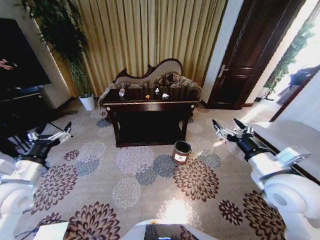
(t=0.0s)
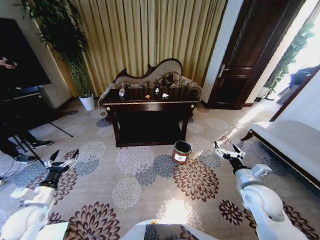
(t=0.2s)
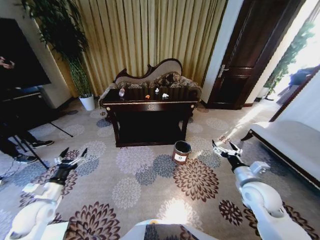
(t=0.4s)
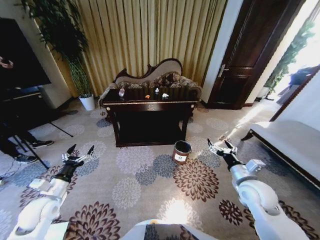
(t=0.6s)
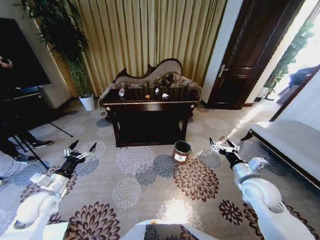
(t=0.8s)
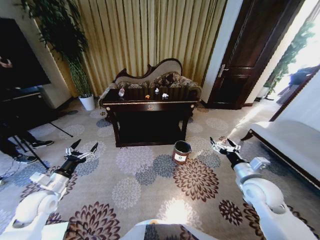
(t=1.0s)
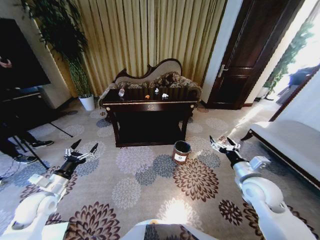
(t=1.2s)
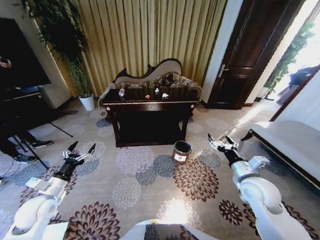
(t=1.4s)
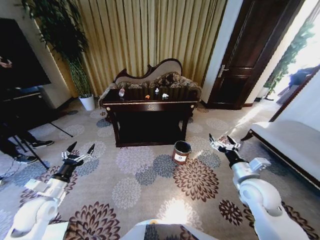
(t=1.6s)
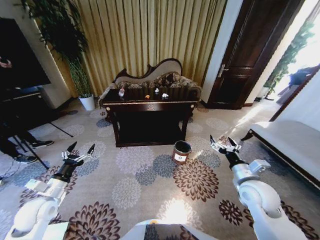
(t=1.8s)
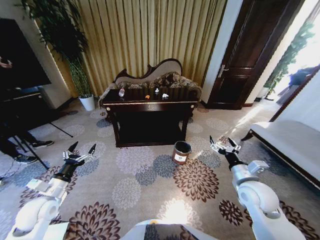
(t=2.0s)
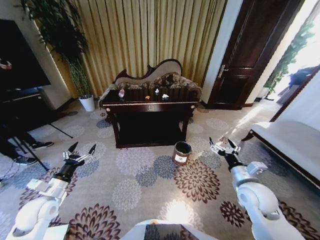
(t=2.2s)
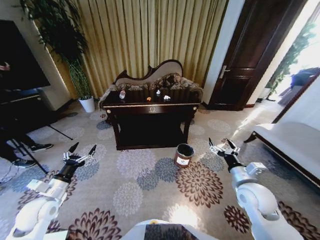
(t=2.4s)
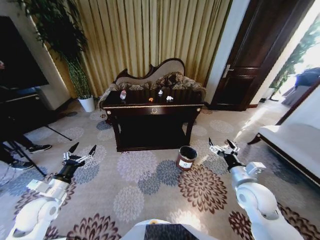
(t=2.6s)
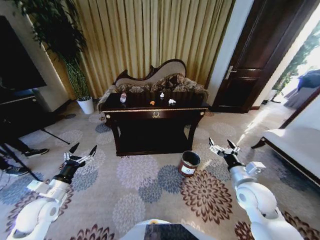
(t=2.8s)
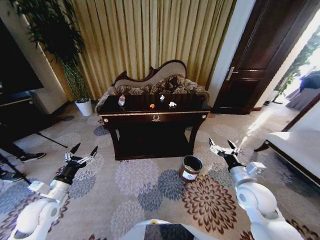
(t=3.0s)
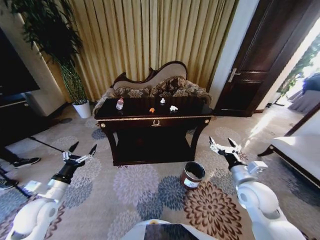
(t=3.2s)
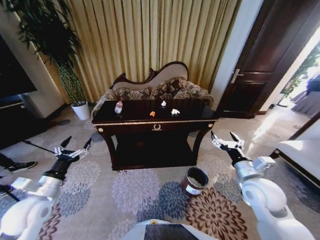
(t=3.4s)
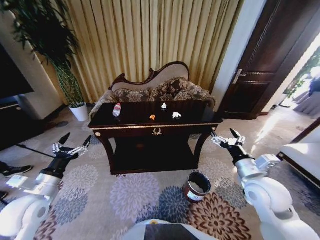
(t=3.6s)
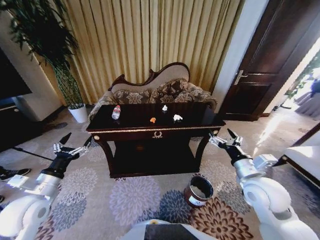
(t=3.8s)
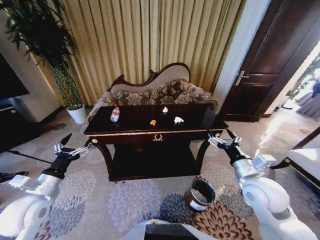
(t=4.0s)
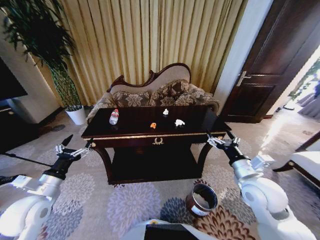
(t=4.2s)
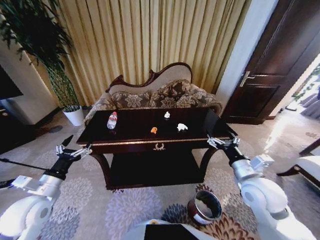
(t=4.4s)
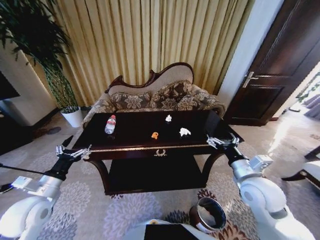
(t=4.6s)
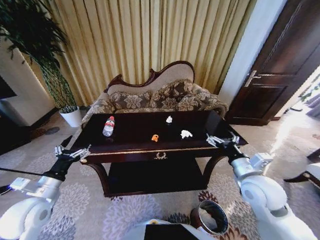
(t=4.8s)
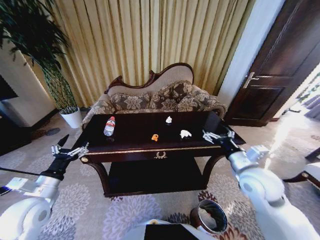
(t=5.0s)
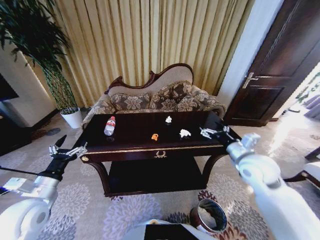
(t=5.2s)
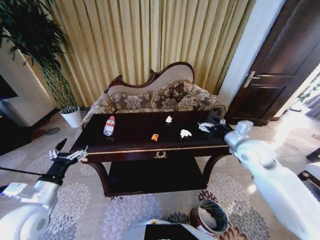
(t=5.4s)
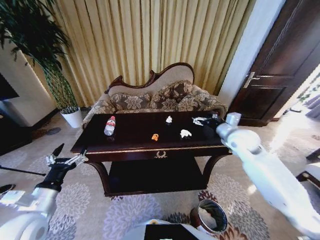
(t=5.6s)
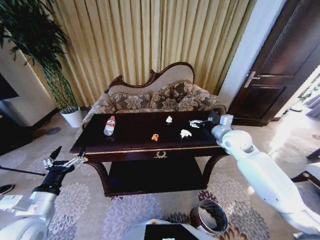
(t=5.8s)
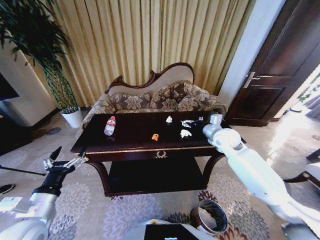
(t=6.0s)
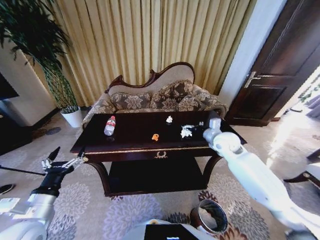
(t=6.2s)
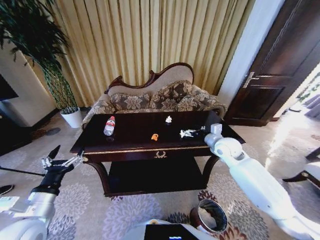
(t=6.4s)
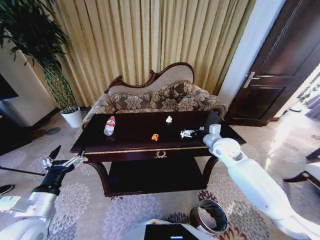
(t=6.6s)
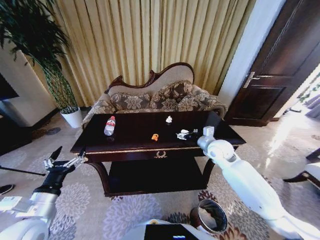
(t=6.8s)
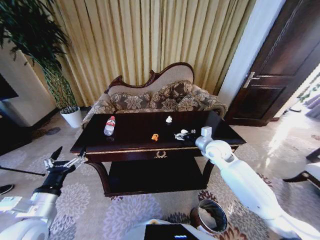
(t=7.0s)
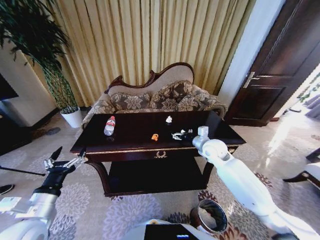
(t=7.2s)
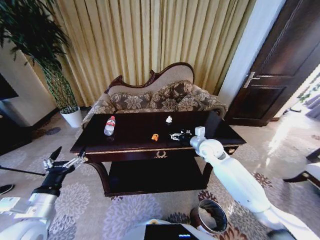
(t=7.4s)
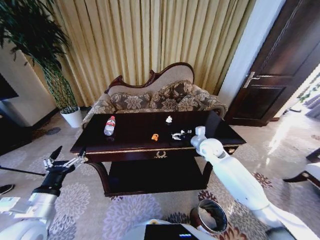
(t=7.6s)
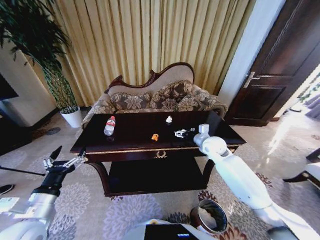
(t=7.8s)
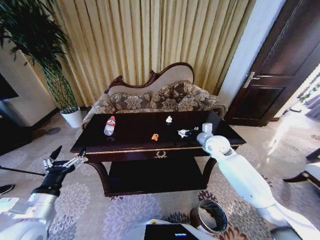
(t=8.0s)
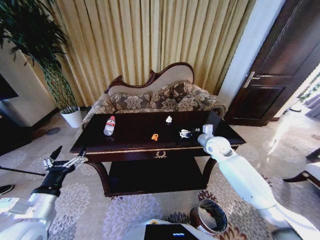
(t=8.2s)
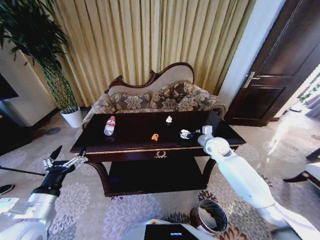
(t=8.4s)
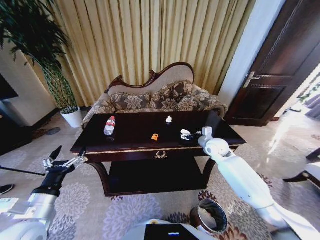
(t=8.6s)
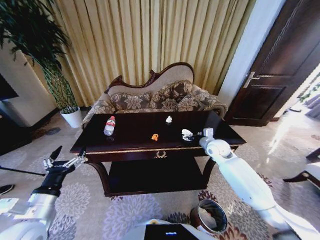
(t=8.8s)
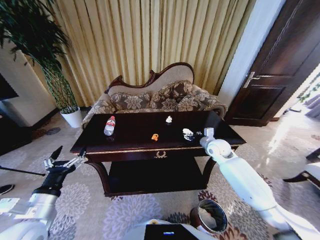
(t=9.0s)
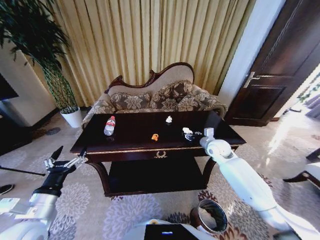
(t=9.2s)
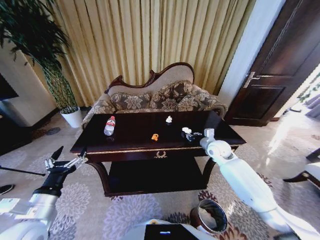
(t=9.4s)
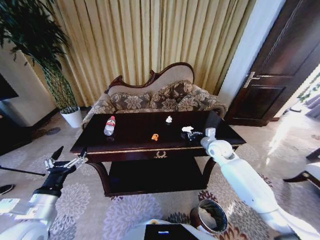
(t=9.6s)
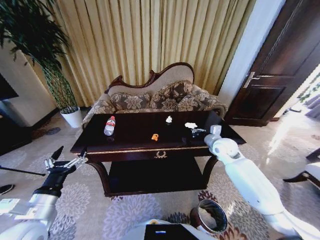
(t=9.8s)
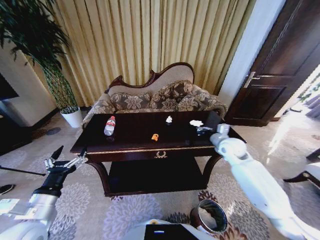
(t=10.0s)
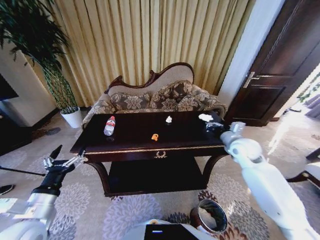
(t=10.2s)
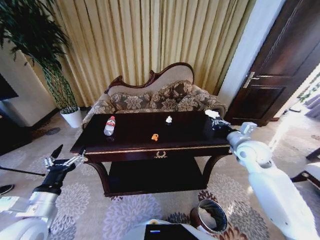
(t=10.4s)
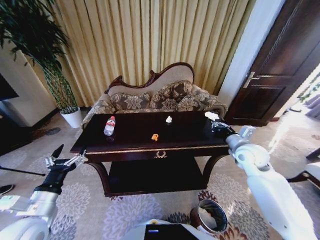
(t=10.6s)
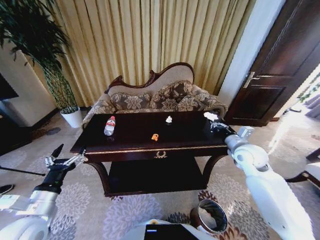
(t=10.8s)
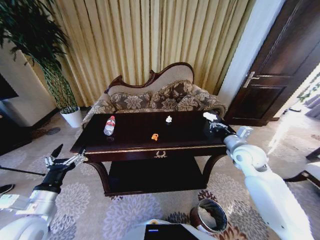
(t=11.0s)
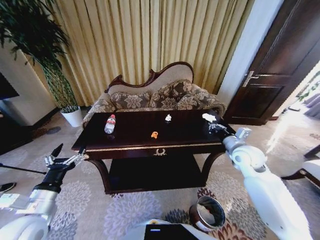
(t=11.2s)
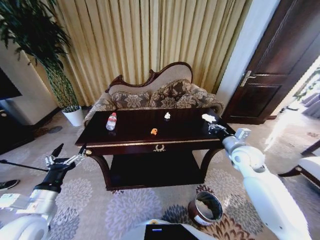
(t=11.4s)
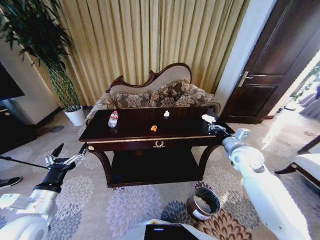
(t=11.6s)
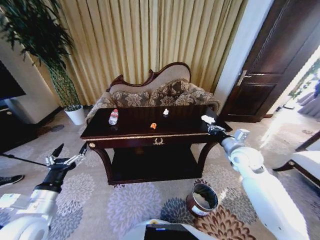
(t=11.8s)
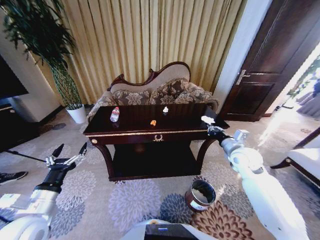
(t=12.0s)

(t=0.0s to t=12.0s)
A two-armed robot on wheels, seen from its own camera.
Task of the whole recording: Move to the front of the table and place the trash on the table into the trash bin.
t=3.0s - t=4.4s: Both grippers move upward, about 5 cm.
t=4.4s - t=6.0s: The left gripper heads backward, covering roughly 5 cm. Meanwhile the right gripper is displaced forward by roughly 20 cm.
t=6.0s - t=7.6s: The right gripper heads downward, covering some 5 cm.
t=7.6s - t=9.0s: The right gripper travels to the right by roughly 5 cm.
t=9.0s - t=10.4s: The right gripper shifts about 15 cm upward, backward and to the right, and closes its fingers.

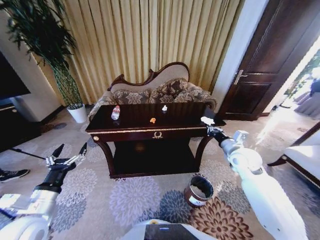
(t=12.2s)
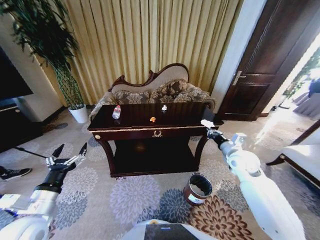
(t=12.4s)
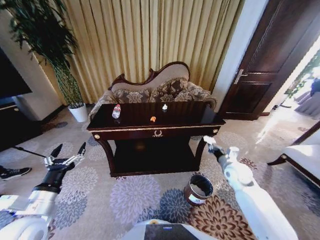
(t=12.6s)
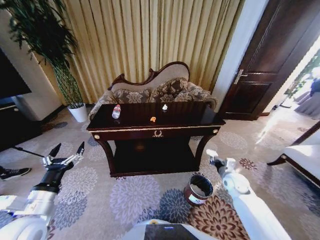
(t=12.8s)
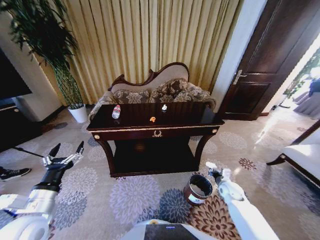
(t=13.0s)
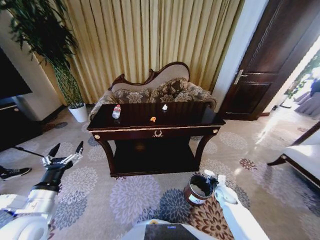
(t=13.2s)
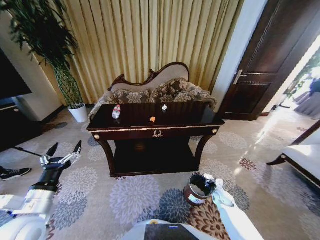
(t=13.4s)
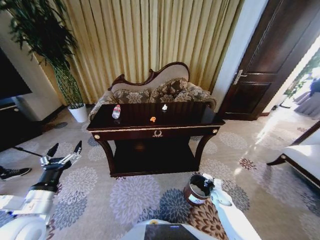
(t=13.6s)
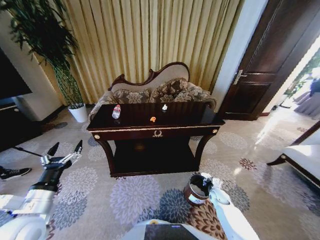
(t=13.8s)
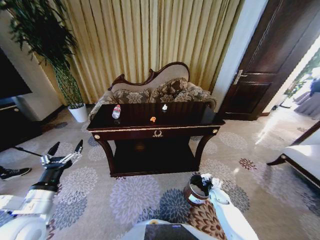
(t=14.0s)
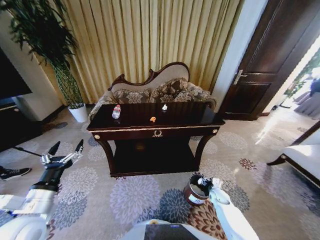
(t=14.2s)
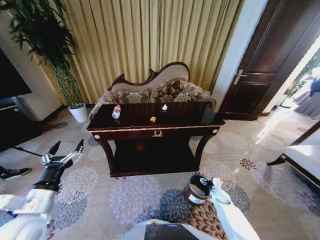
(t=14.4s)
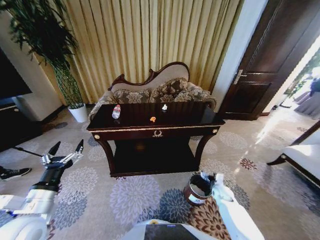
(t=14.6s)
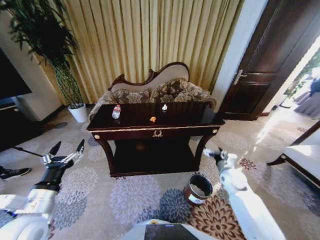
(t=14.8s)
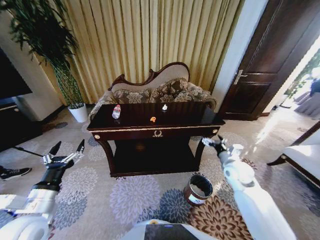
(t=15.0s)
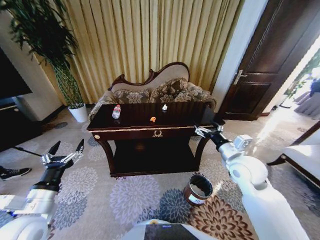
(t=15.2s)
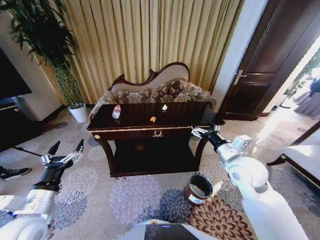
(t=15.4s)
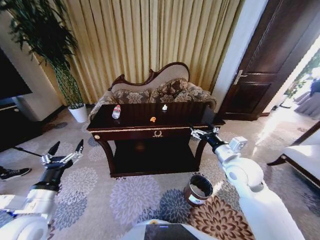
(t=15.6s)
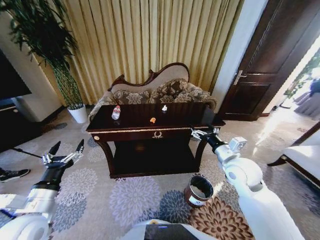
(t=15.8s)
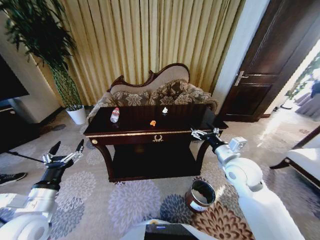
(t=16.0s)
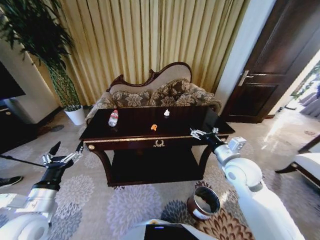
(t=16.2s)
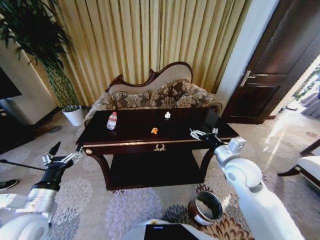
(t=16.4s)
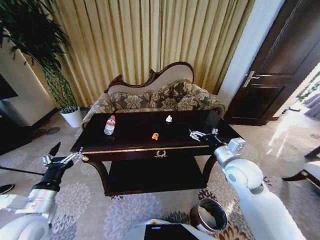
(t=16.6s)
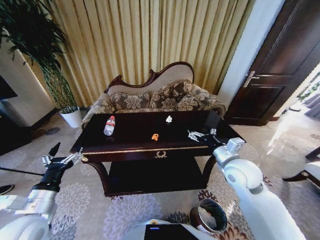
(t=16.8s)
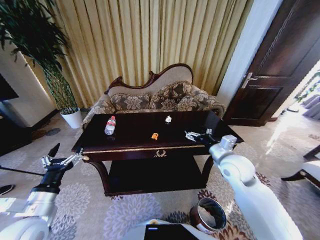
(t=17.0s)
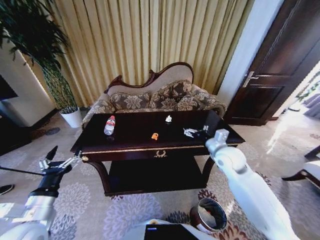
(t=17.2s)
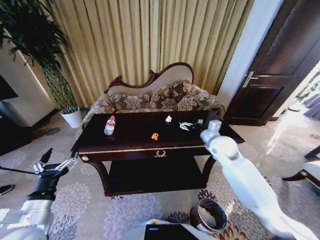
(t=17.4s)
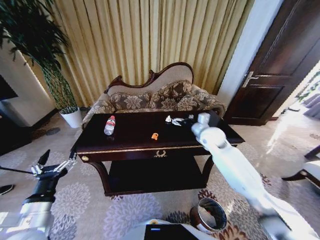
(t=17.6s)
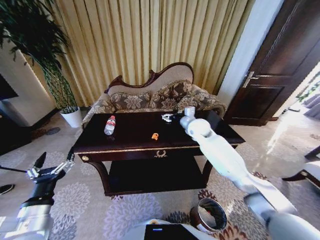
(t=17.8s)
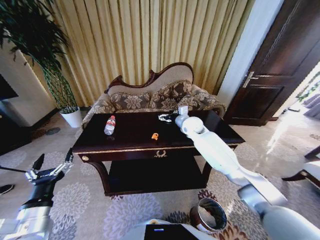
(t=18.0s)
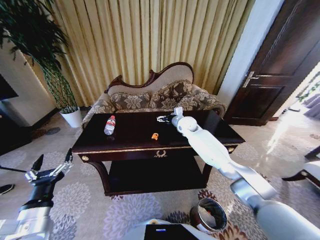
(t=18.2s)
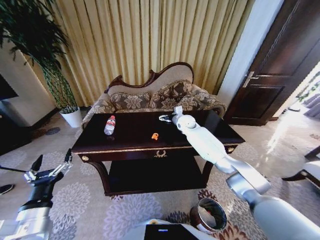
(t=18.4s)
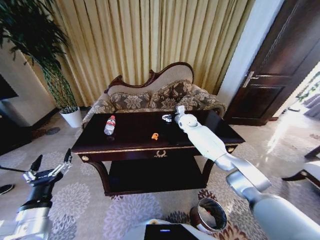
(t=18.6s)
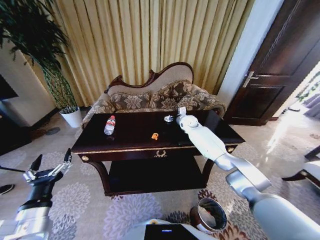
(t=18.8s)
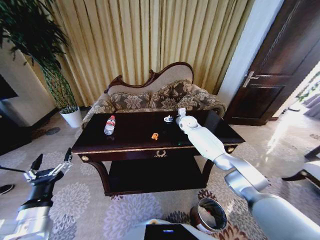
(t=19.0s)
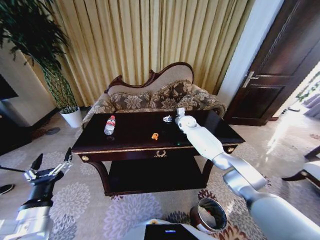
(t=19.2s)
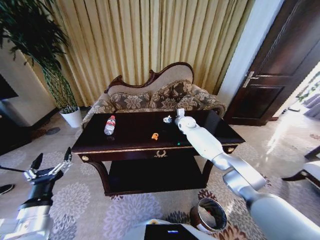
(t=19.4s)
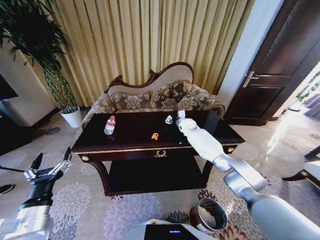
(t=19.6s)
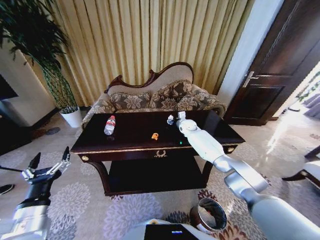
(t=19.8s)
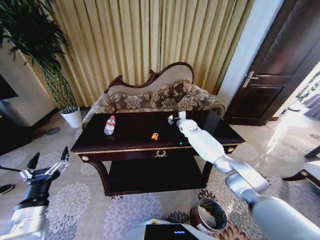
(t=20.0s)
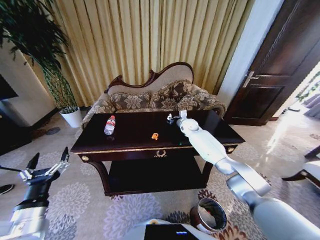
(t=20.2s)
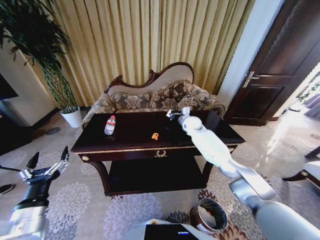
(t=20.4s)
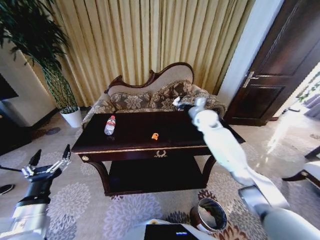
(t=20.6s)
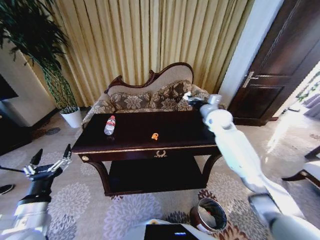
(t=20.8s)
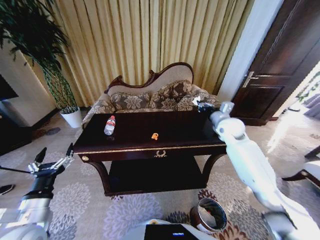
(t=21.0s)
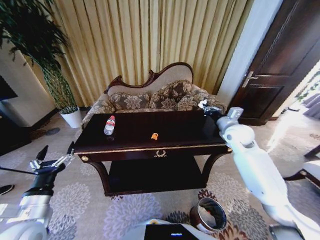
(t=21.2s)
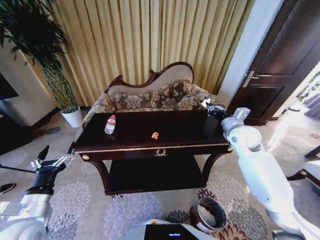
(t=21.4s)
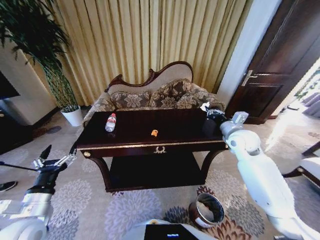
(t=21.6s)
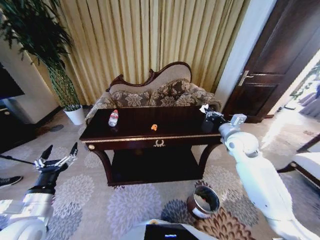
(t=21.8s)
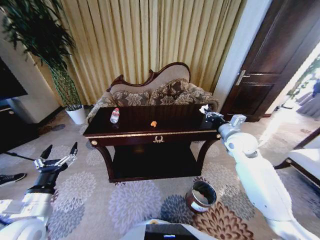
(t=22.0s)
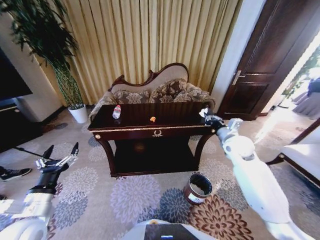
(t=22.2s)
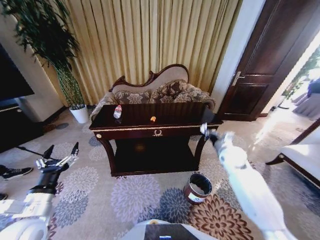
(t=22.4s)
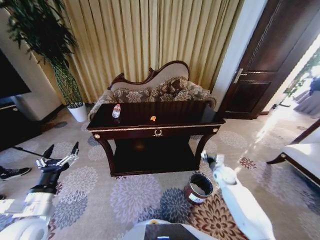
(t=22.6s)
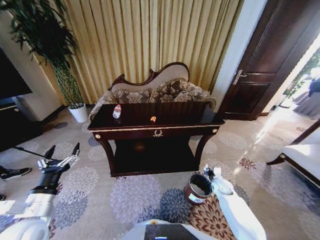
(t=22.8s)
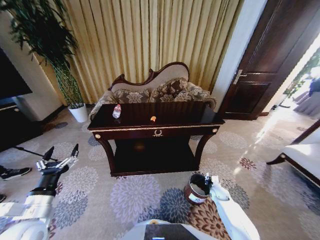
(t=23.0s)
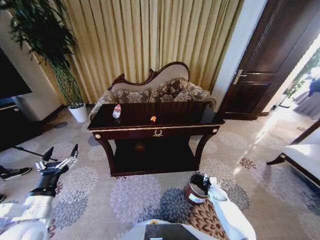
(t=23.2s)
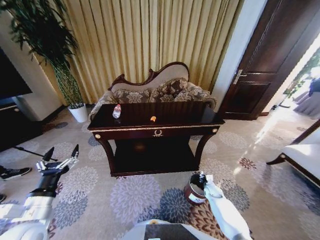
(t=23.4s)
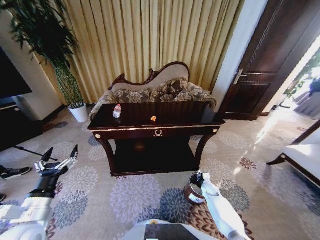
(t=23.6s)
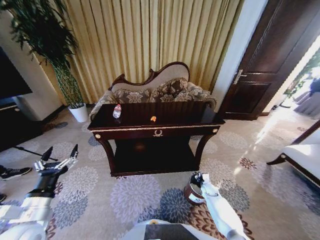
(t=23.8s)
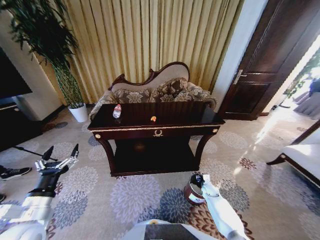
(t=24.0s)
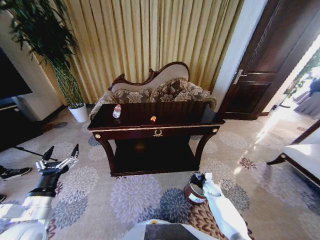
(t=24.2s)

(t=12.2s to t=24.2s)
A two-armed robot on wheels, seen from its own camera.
Task of the whole recording: Move to the front of the table and place the trash on the table into the trash bin.
t=12.2s - t=13.8s: The right gripper travels downward by approximately 35 cm.
t=13.8s - t=15.2s: The right gripper is displaced upward by roughly 35 cm, and opens.
t=16.6s - t=18.2s: The left gripper changes place by some 5 cm; the right gripper moves forward, some 30 cm.
t=18.2s - t=19.8s: The right gripper shifts about 10 cm downward and forward, and closes.
t=19.8s - t=21.2s: The right gripper shifts about 25 cm backward, to the right and upward, and closes.
t=21.2s - t=22.6s: The right gripper travels downward by about 25 cm.
t=22.6s - t=24.2s: The right gripper moves downward, about 15 cm, and opens.
